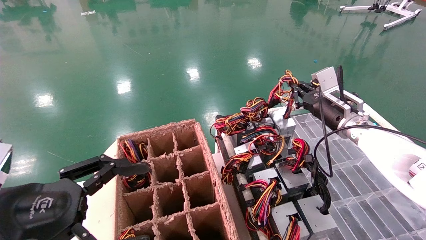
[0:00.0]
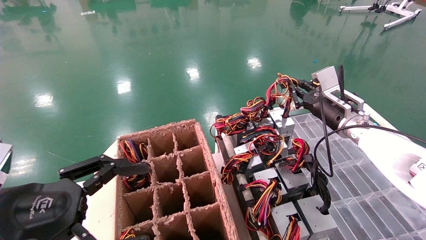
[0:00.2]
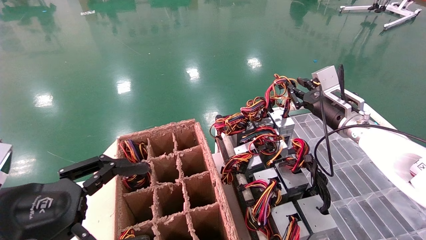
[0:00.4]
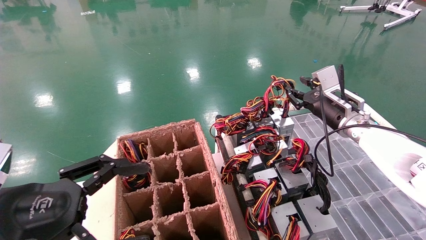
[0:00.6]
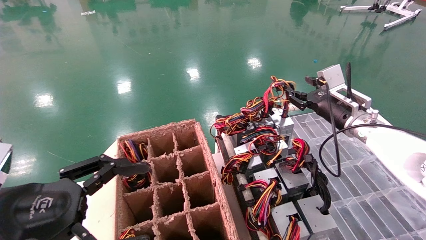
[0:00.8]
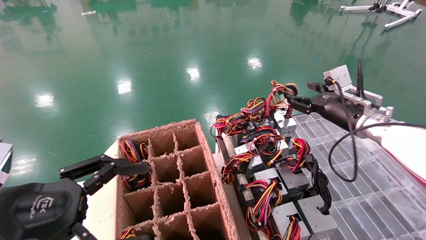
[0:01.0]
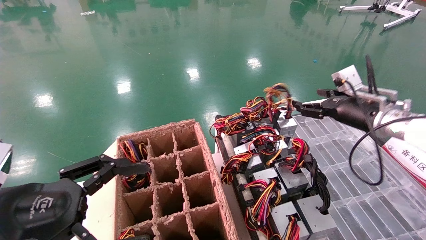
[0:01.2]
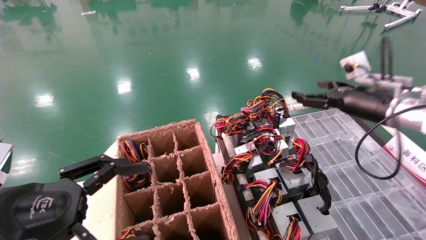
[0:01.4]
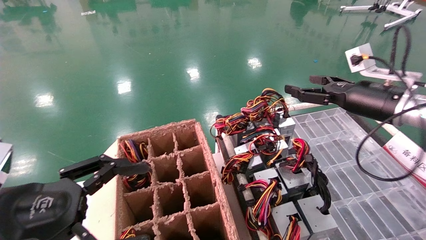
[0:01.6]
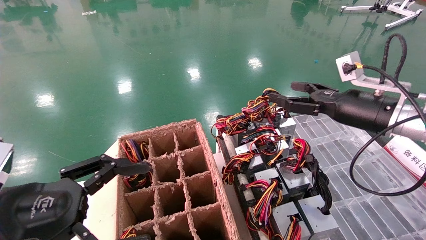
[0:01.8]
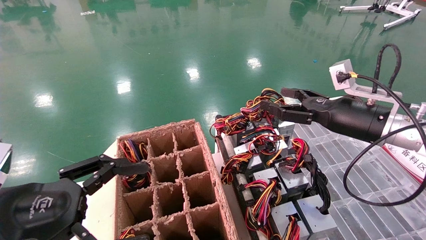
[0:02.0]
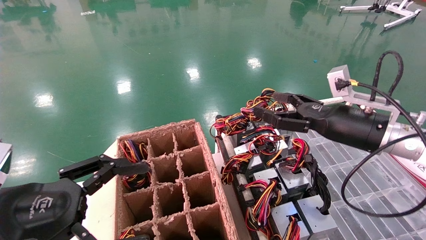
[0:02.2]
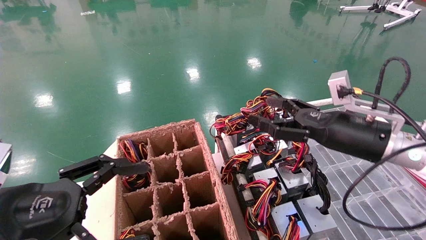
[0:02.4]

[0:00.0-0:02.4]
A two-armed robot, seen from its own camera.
0:00.0 to 0:01.2: The right gripper ends up about 5 cm from where it was, and opens up.
0:01.2 to 0:02.4: The right gripper shifts some 10 cm backward and to the left.

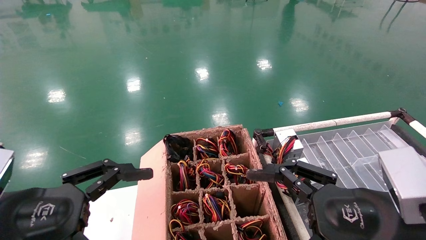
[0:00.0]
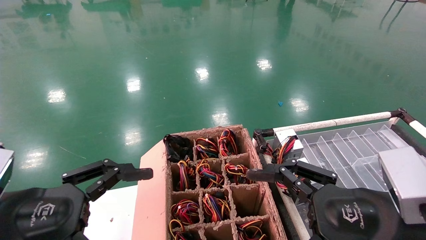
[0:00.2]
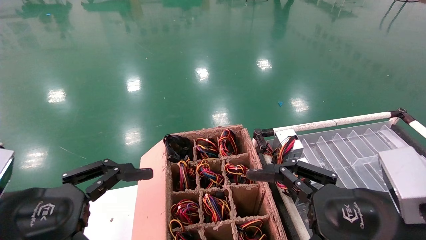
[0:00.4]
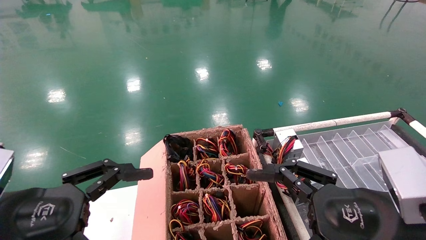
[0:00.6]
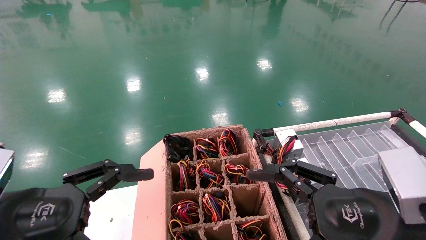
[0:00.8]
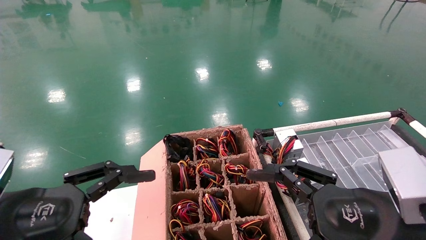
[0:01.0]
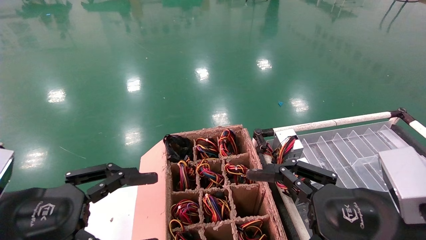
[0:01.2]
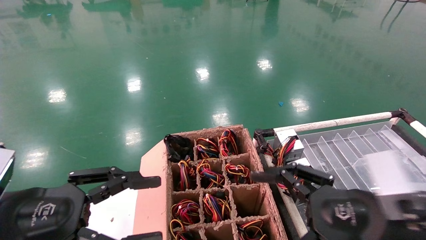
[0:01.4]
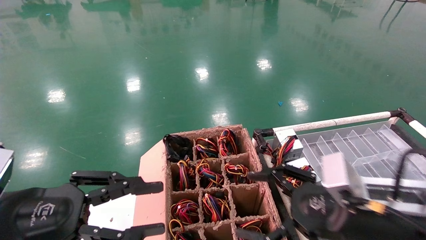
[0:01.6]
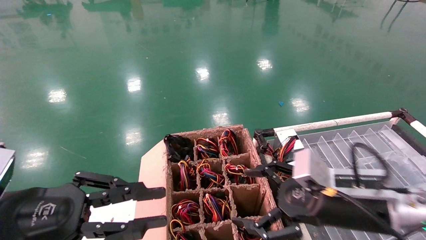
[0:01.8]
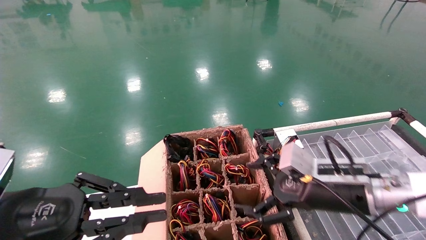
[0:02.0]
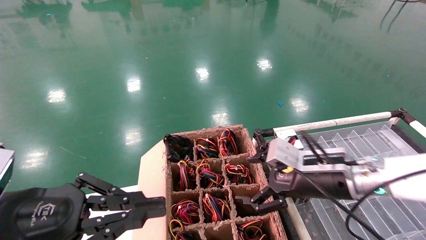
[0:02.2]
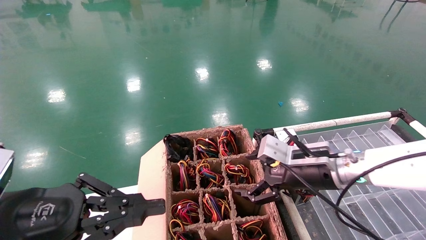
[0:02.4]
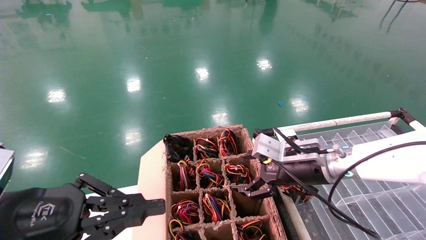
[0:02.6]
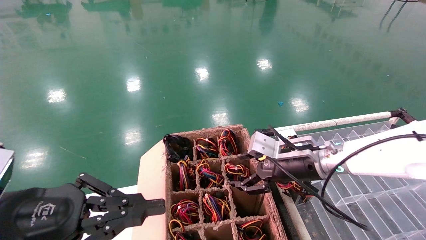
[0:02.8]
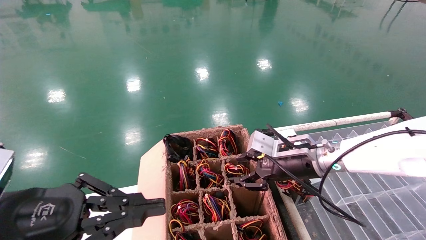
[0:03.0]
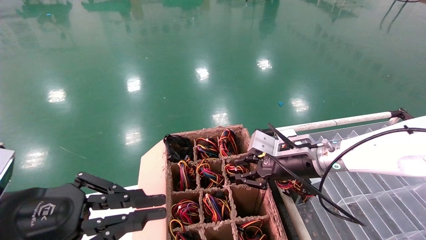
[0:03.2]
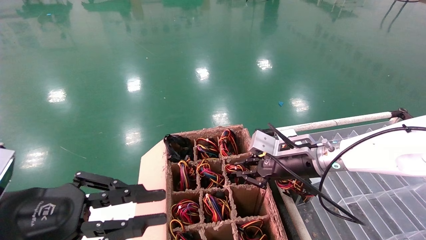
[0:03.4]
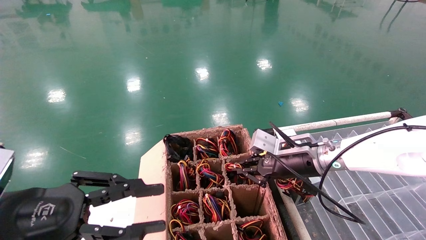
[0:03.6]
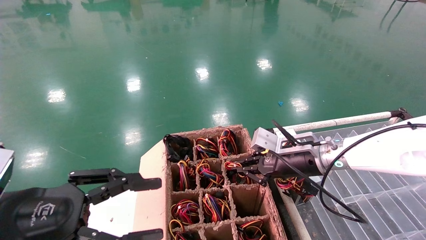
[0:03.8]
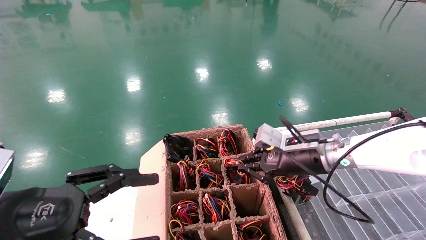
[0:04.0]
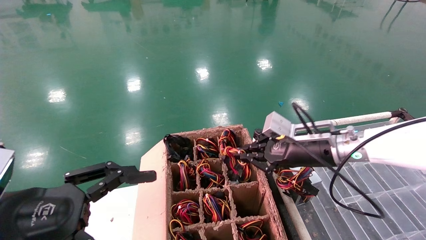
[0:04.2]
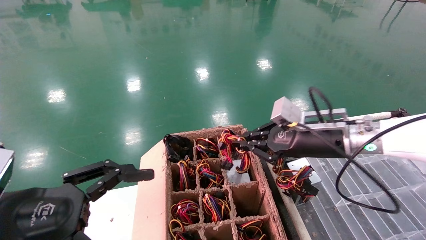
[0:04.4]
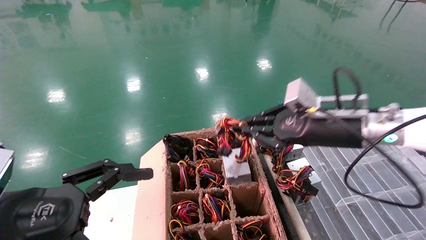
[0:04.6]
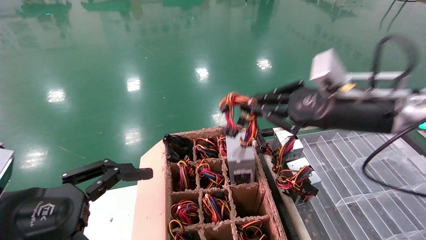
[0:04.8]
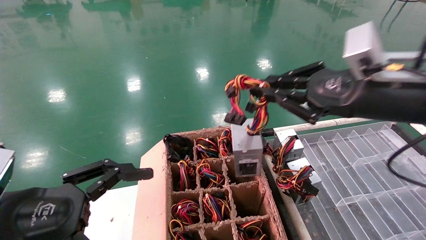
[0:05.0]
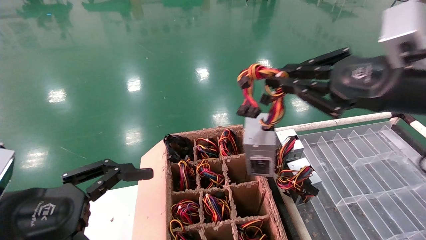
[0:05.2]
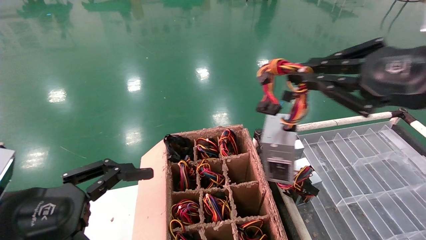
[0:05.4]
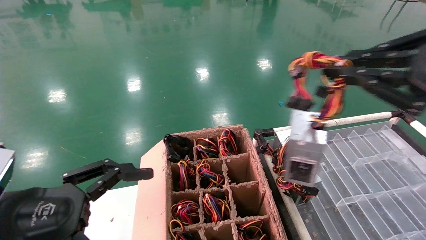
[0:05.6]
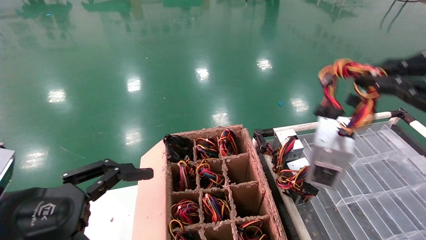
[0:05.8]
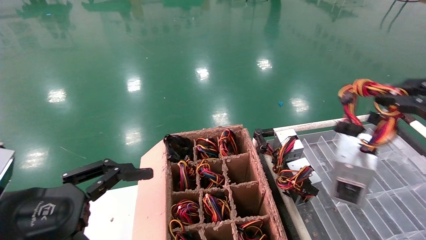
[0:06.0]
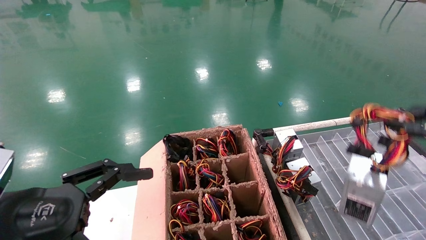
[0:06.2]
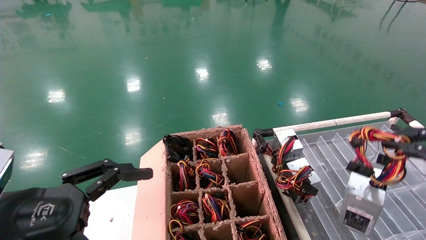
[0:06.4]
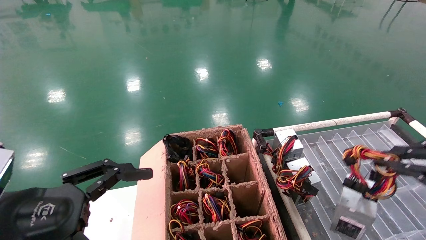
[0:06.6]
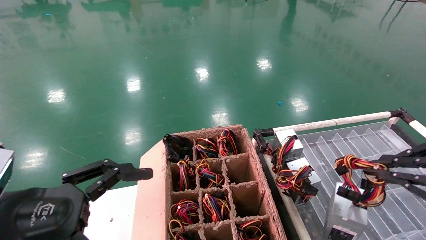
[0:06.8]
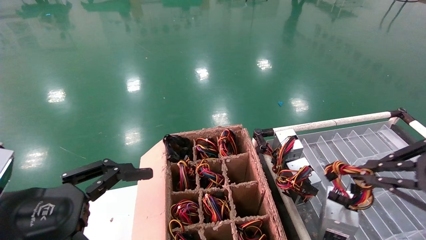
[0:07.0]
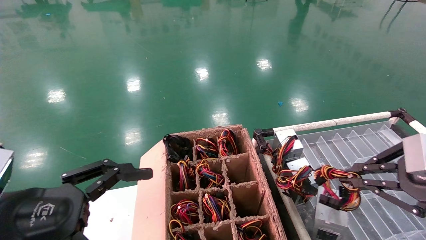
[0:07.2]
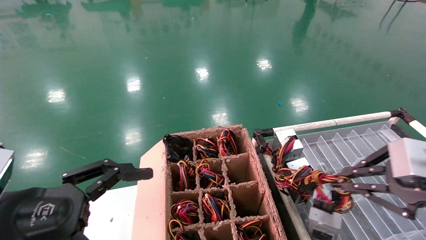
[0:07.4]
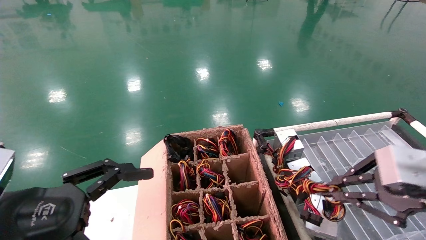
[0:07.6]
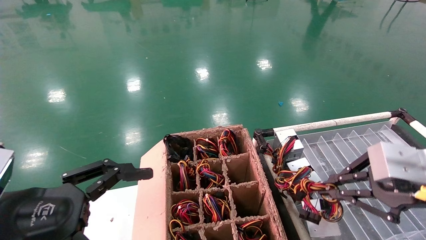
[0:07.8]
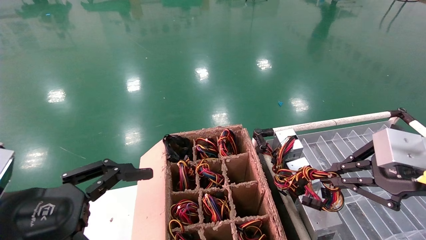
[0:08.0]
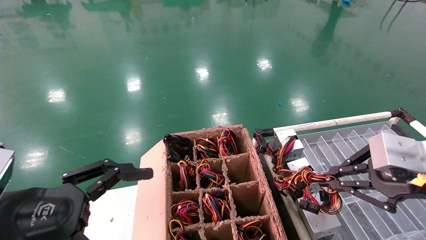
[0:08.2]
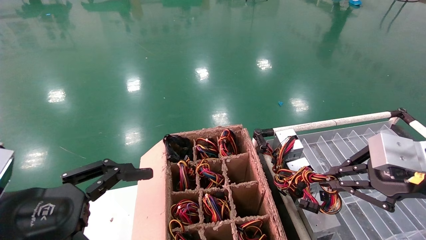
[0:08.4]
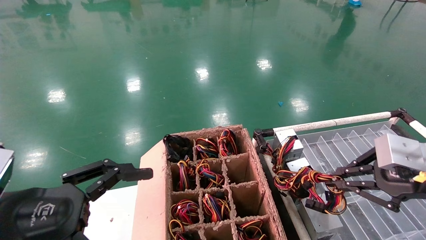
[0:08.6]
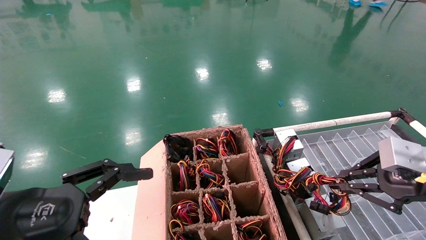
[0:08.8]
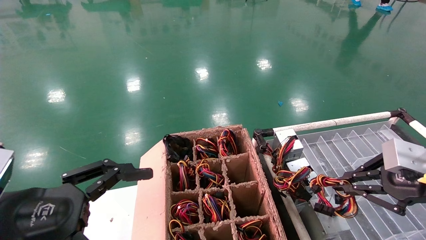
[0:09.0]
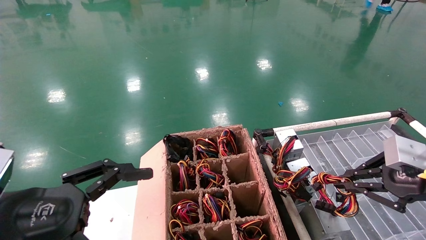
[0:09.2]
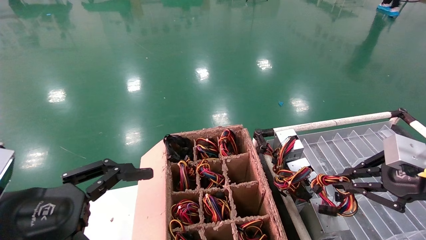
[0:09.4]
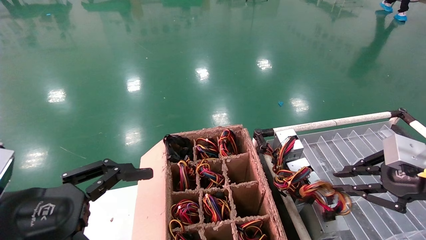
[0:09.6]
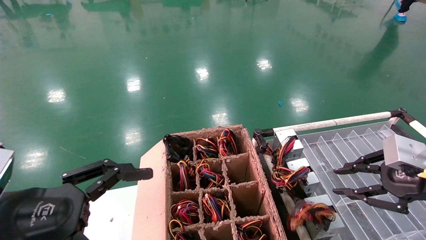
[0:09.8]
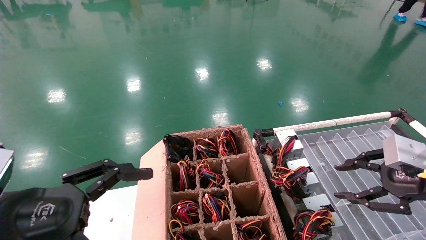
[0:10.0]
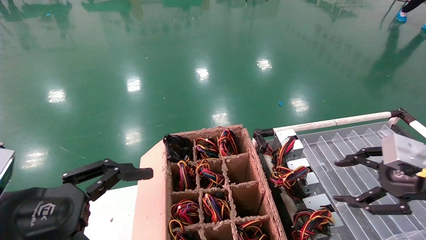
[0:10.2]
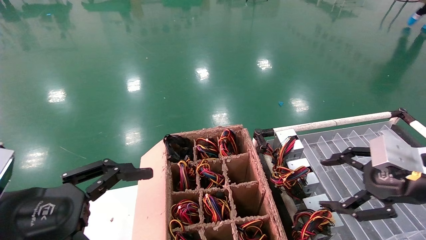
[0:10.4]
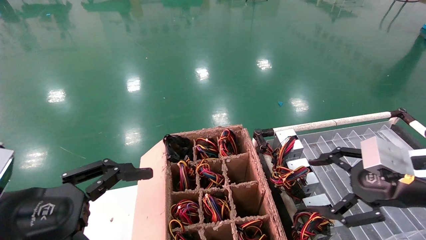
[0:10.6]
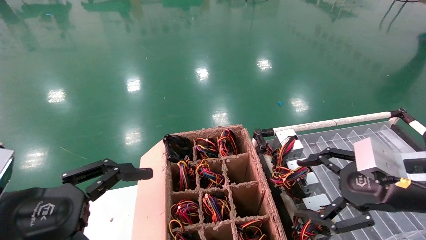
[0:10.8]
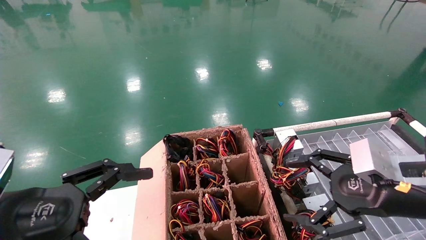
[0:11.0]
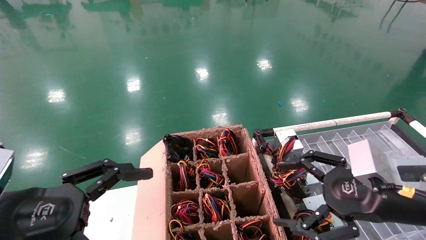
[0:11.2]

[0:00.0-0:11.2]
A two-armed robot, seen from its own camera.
Step, 0:01.4 to 0:03.8: Grab and lift the power supply from the large box.
Step, 0:04.0 to 0:09.4: Place the power supply on the operating table.
0:00.0 to 0:01.6: The left gripper closes, while the right gripper travels forward by roughly 5 cm.
0:01.6 to 0:03.2: The right gripper moves forward, roughly 15 cm, and closes. The left gripper closes up.
0:03.2 to 0:04.8: The left gripper opens, while the right gripper is displaced upward, backward and to the right by approximately 15 cm, and closes.
0:04.8 to 0:06.4: The right gripper travels backward and to the right by about 20 cm.
0:06.4 to 0:08.0: The right gripper moves forward and to the left, roughly 10 cm.
0:08.0 to 0:09.6: The right gripper is displaced to the right by some 5 cm.
0:09.6 to 0:11.2: The right gripper is displaced to the left by some 10 cm, and opens up.
